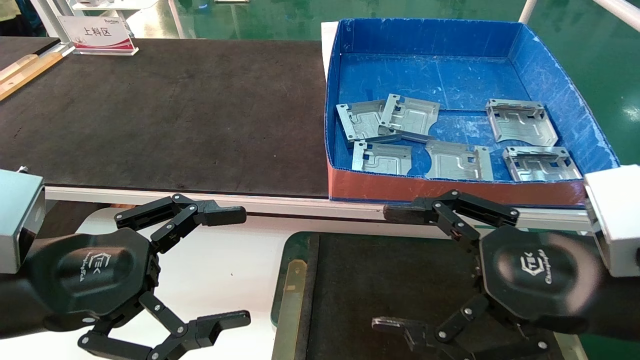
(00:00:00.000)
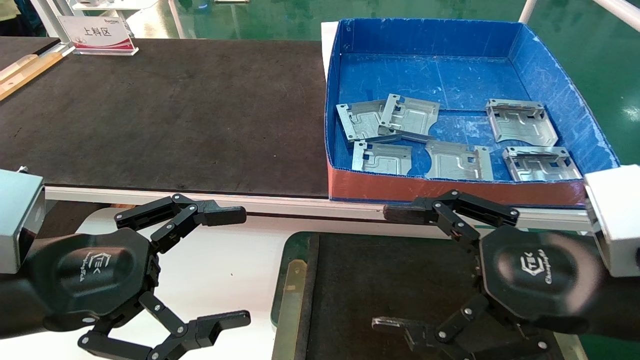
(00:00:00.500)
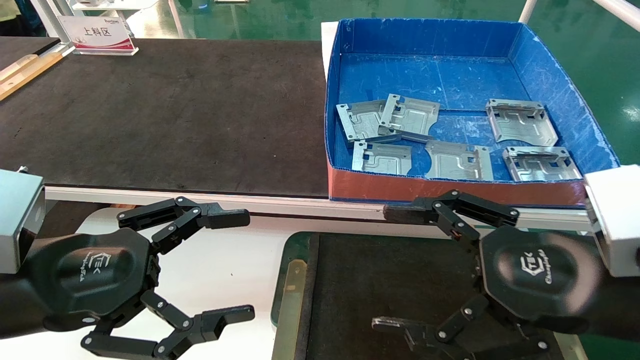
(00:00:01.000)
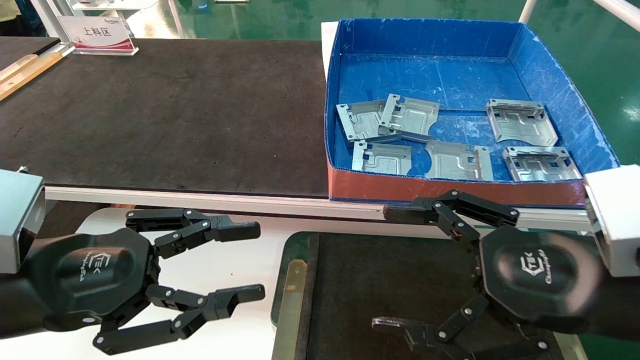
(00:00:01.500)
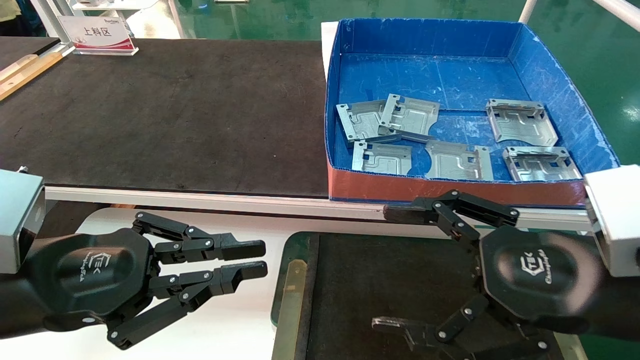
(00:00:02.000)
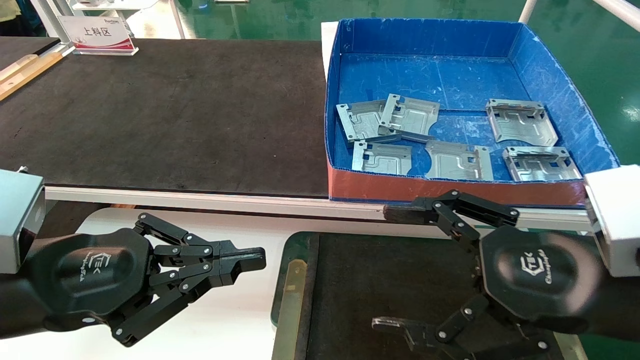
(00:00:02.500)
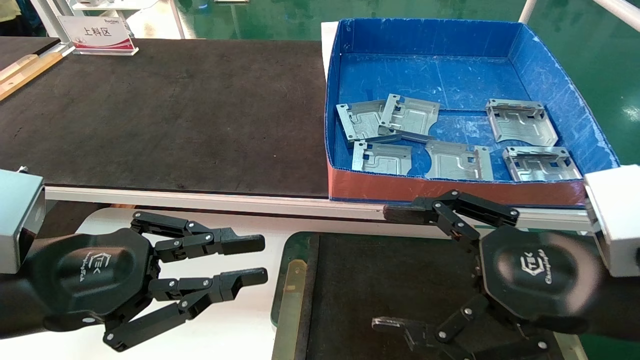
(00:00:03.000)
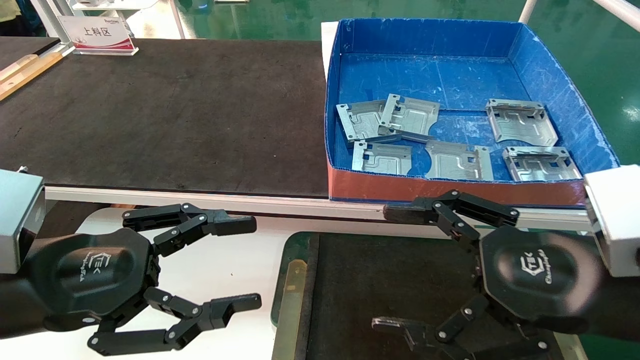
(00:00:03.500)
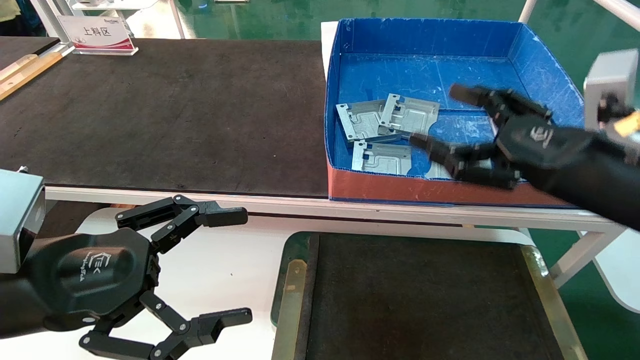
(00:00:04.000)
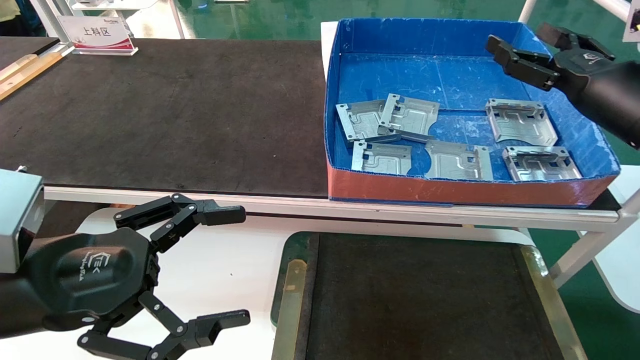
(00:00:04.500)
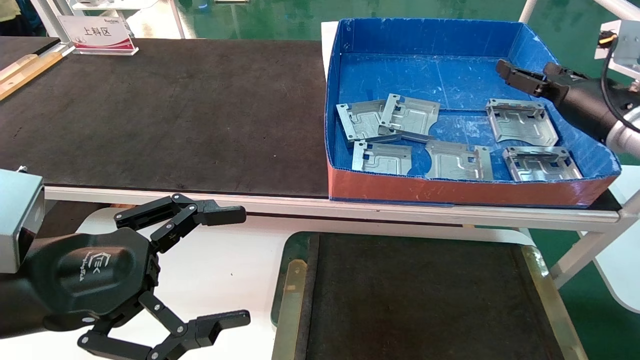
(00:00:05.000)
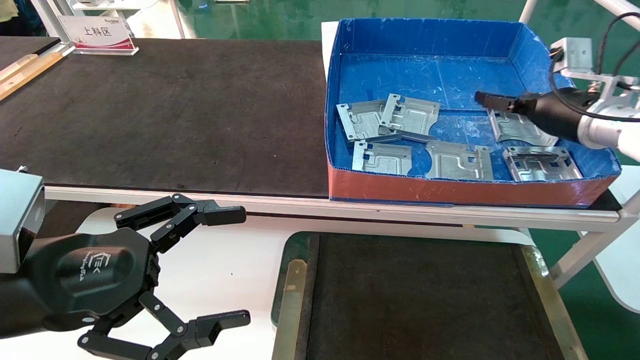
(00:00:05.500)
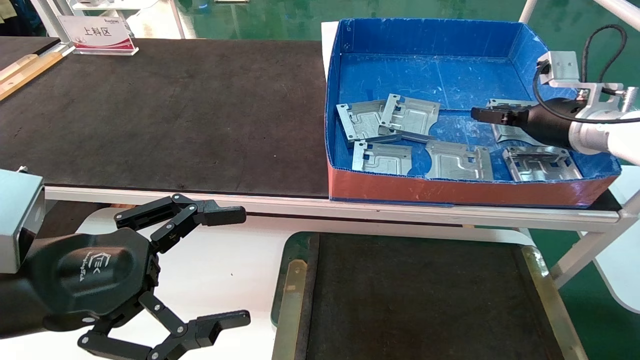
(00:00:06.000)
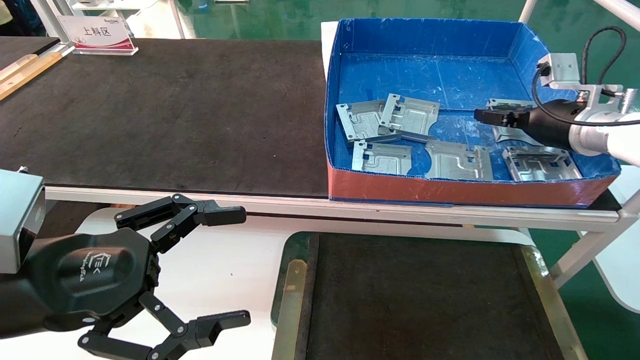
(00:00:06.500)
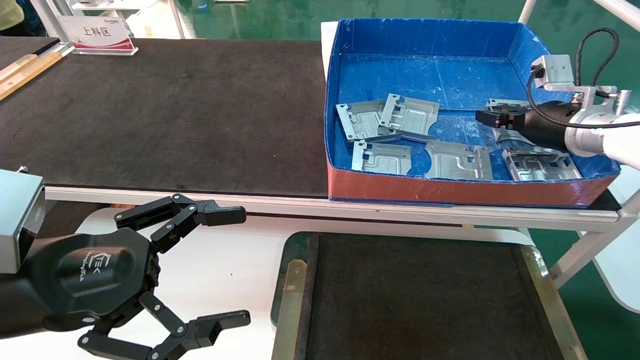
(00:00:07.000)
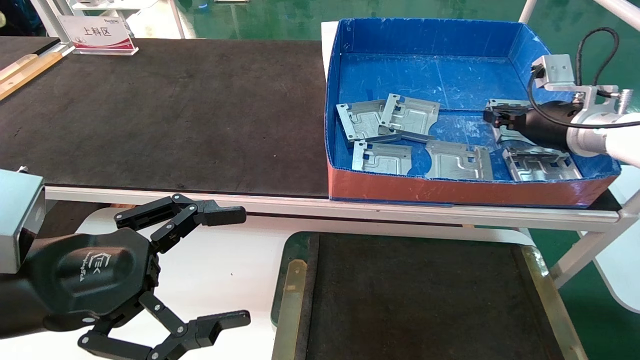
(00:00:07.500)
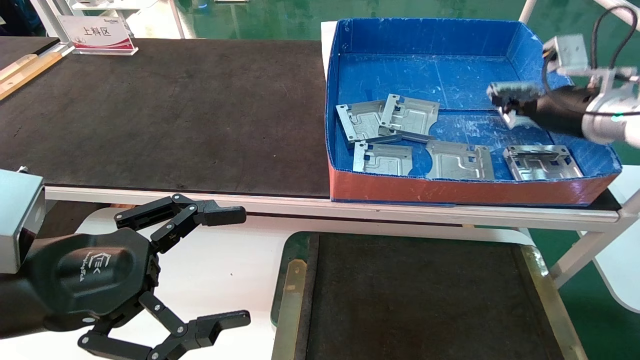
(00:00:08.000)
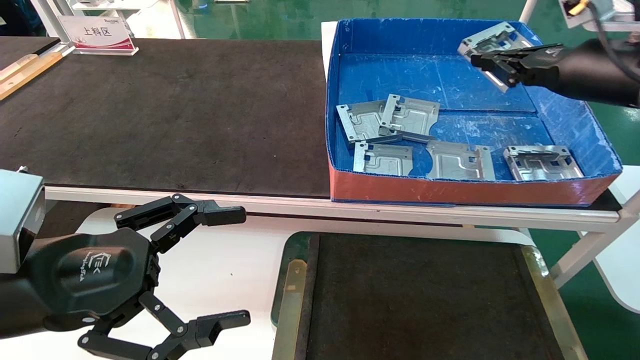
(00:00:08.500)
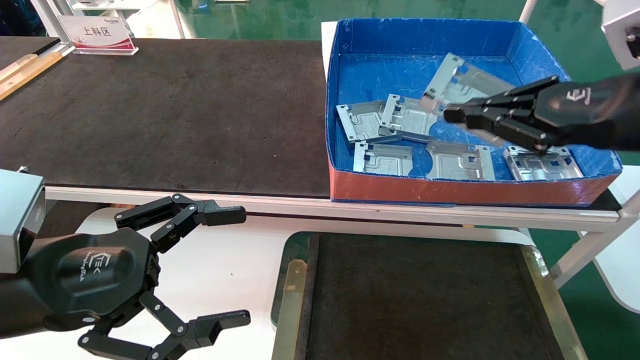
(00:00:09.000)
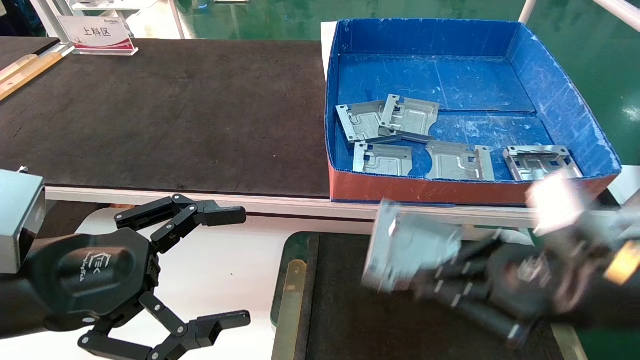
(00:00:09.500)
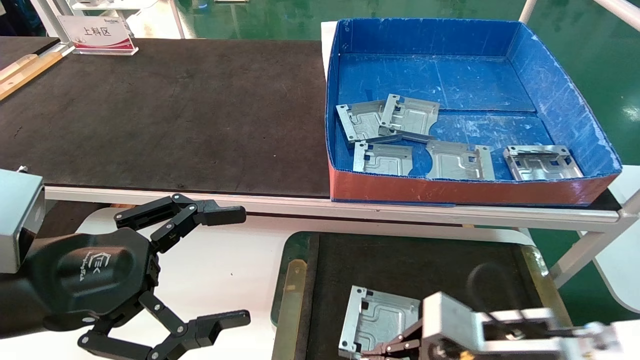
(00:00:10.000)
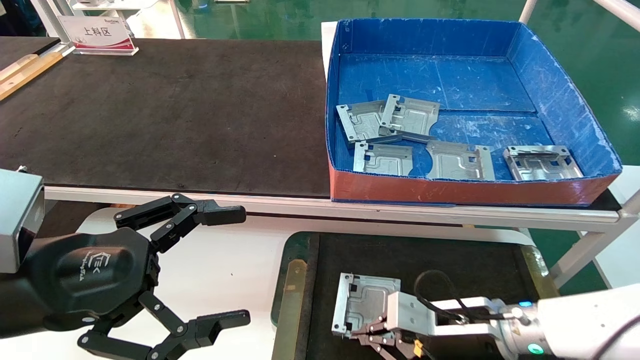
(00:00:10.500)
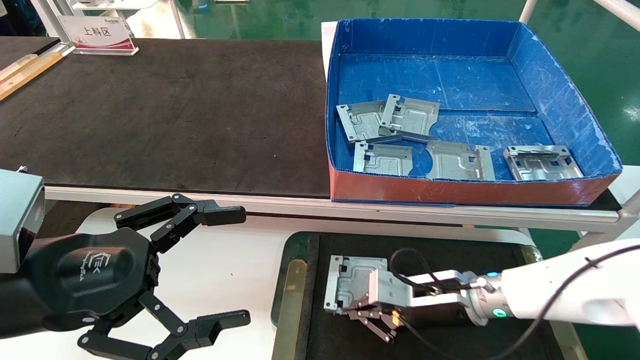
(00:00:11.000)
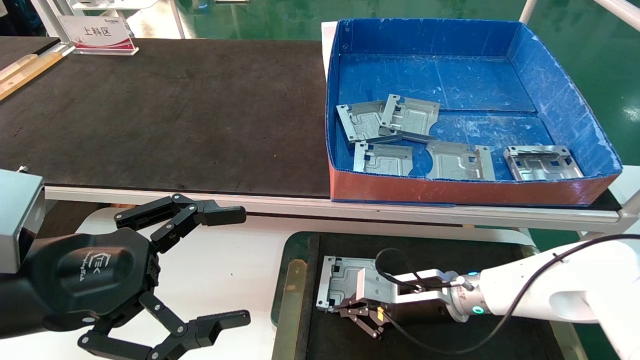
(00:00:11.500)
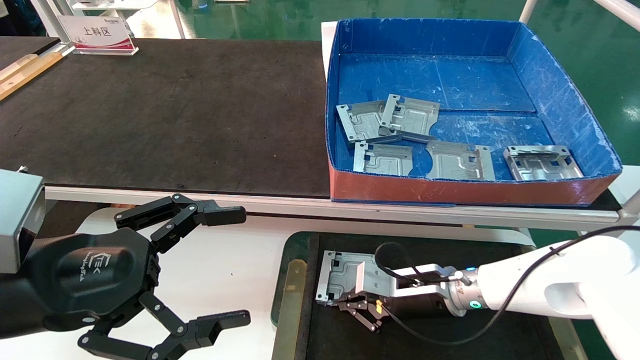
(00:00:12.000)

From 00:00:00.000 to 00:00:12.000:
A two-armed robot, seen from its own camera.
Task of the whole recording: pick up parts and place them into a black container.
Step, from 00:00:04.000 to 00:00:07.500: Pick up the hard drive bracket from the feeding area.
From 00:00:00.000 to 00:00:02.000: The left gripper closes its fingers.
From 00:00:02.000 to 00:00:04.000: The right gripper travels forward by approximately 10 cm. Meanwhile the left gripper opens its fingers.
From 00:00:04.000 to 00:00:06.000: The right gripper moves forward, about 20 cm.
From 00:00:06.000 to 00:00:08.000: The right gripper closes up.
From 00:00:08.000 to 00:00:10.000: The right gripper shifts roughly 30 cm downward, backward and to the left.
From 00:00:10.000 to 00:00:12.000: The right gripper travels forward and to the left by roughly 15 cm.

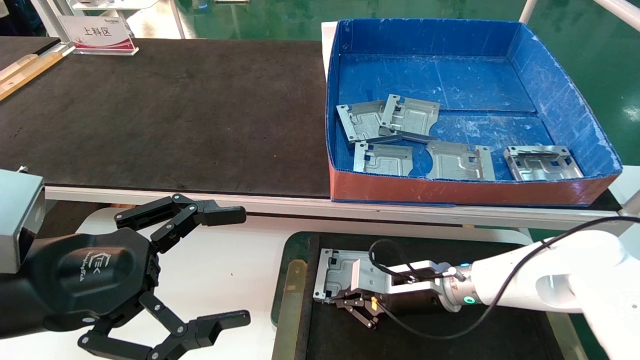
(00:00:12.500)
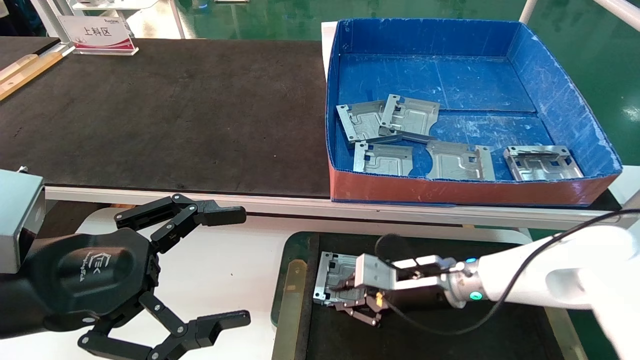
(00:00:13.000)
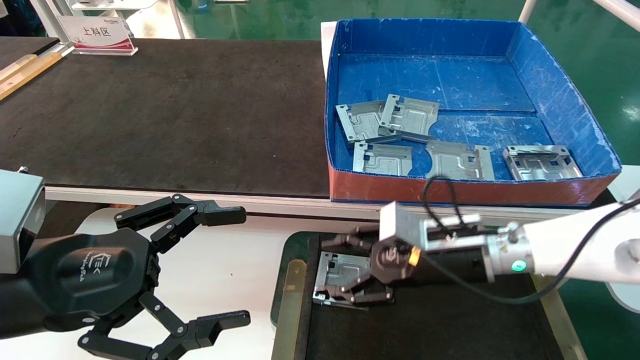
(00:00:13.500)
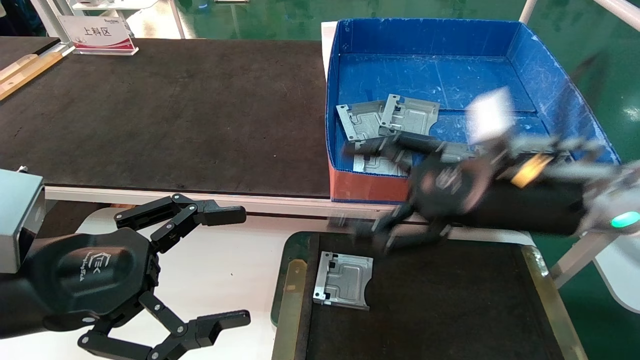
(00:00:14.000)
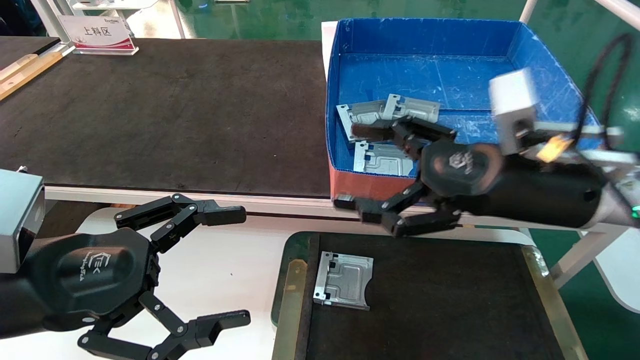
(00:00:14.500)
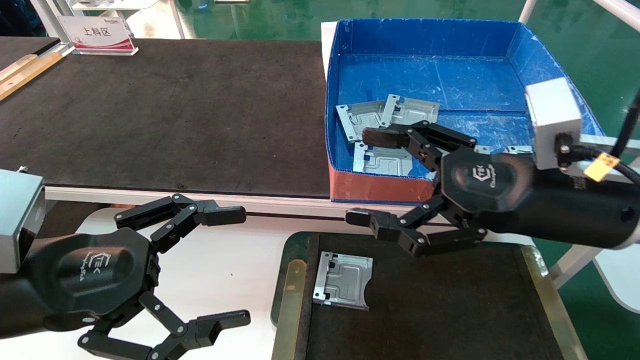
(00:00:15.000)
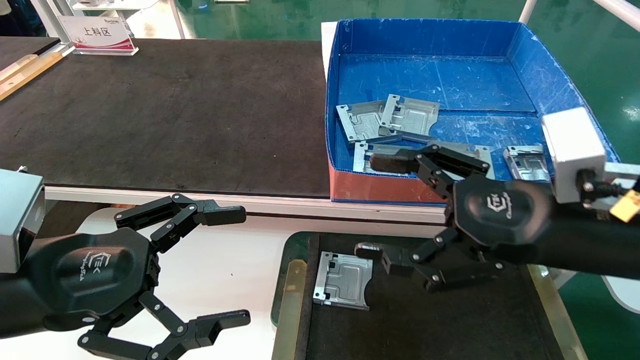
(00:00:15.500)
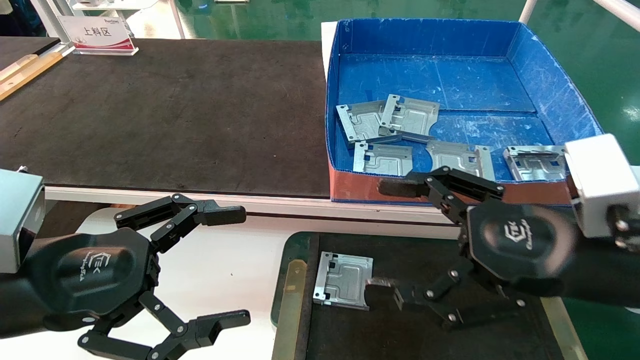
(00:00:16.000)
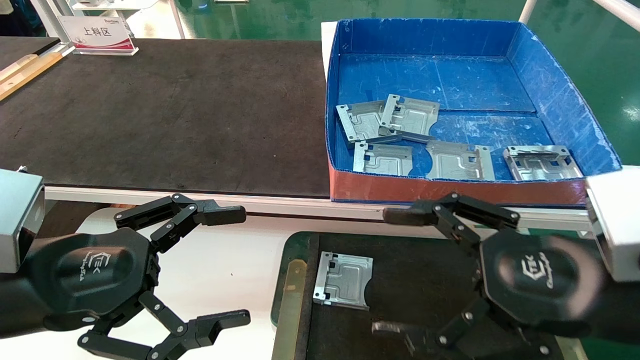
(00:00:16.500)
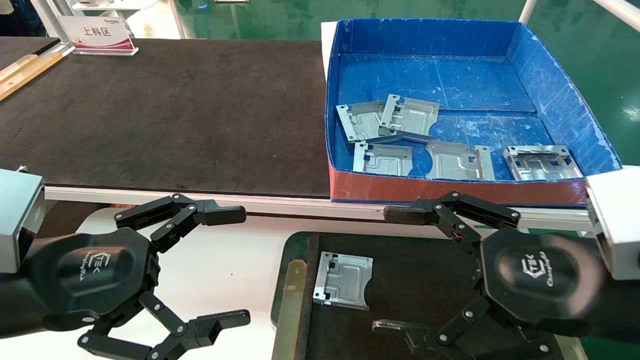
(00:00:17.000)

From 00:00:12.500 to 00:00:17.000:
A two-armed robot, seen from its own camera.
Task of the whole recording: pick up parts and place them into a black container.
From 00:00:12.500 to 00:00:14.500: The right gripper is displaced upward and backward by roughly 25 cm, and opens up.
From 00:00:14.500 to 00:00:17.000: The right gripper heads backward, covering roughly 10 cm.
